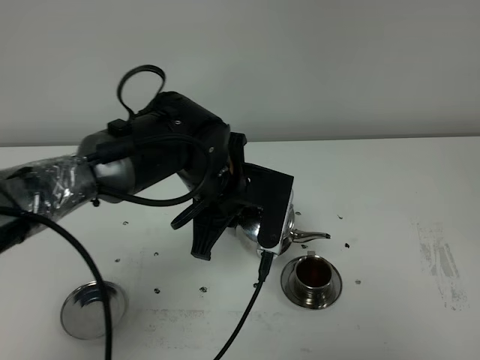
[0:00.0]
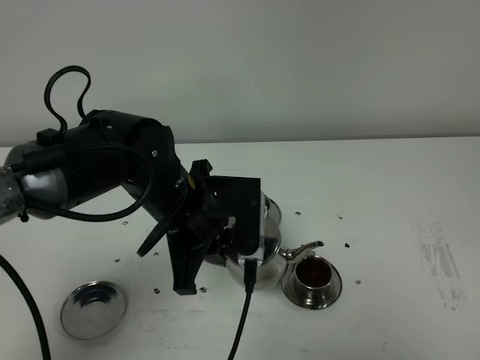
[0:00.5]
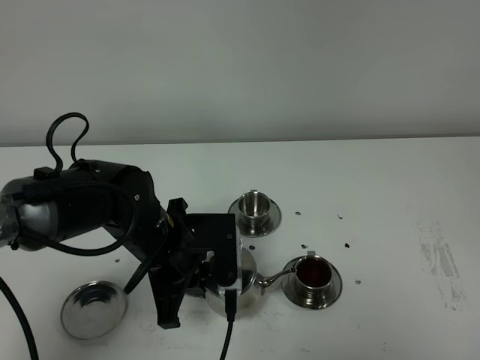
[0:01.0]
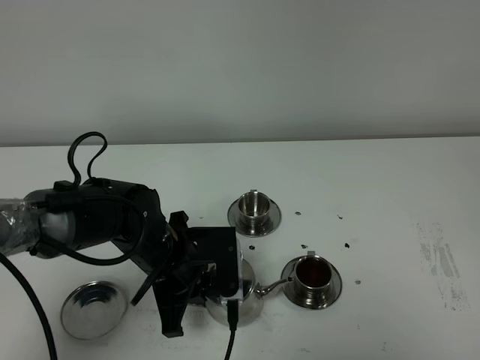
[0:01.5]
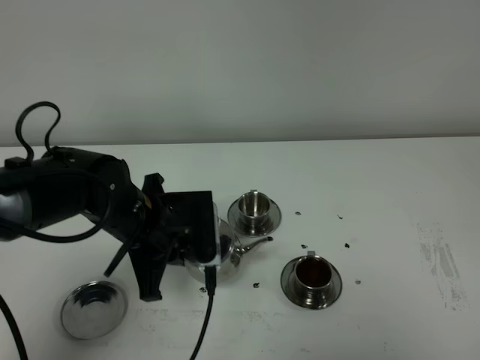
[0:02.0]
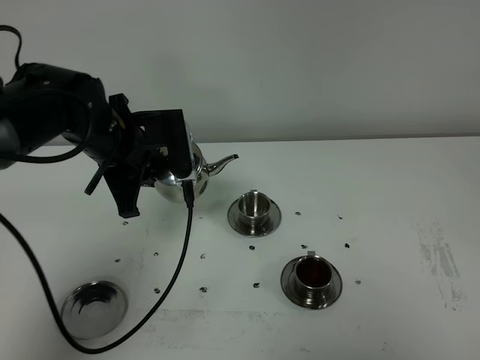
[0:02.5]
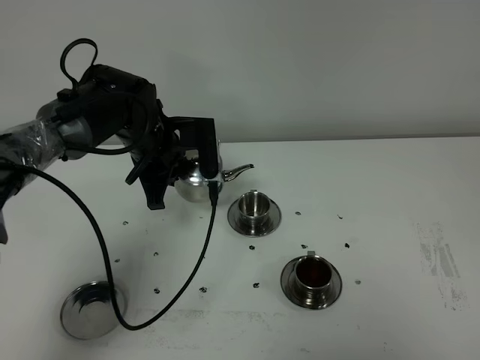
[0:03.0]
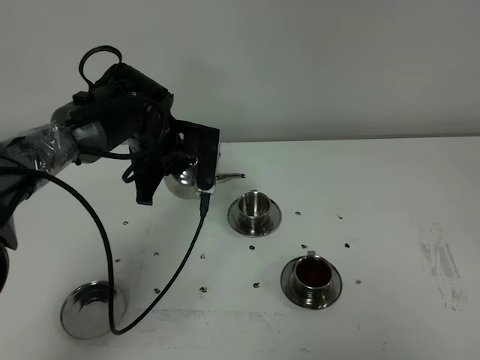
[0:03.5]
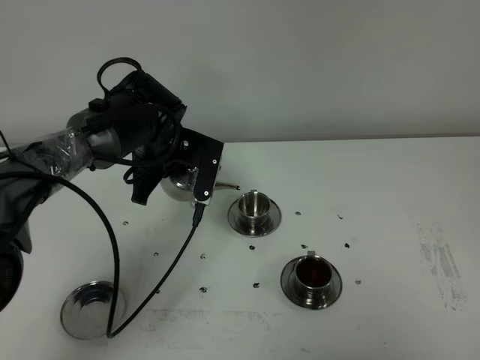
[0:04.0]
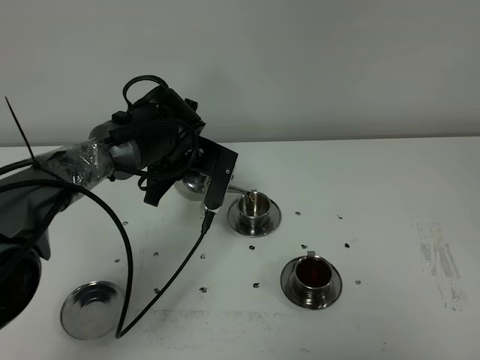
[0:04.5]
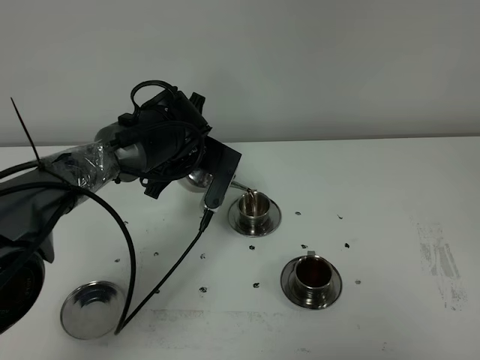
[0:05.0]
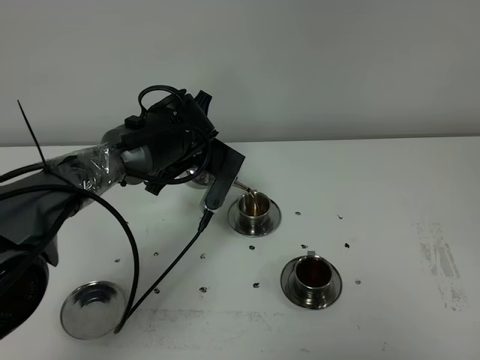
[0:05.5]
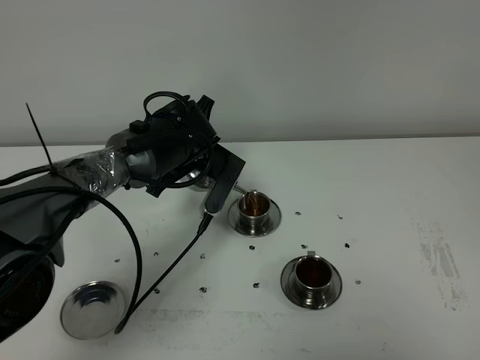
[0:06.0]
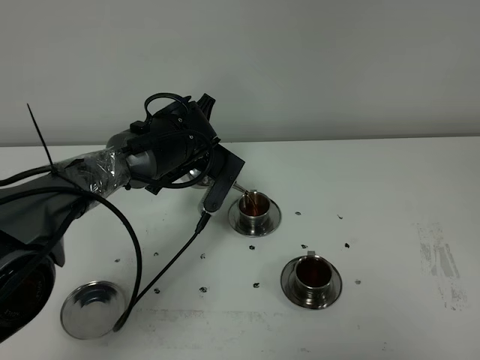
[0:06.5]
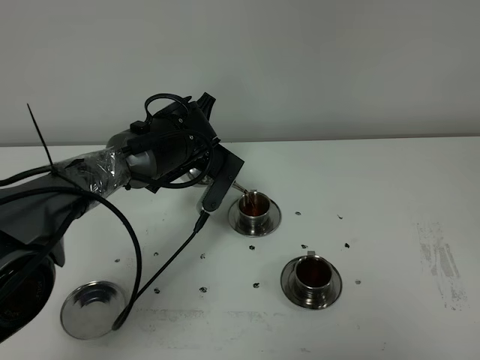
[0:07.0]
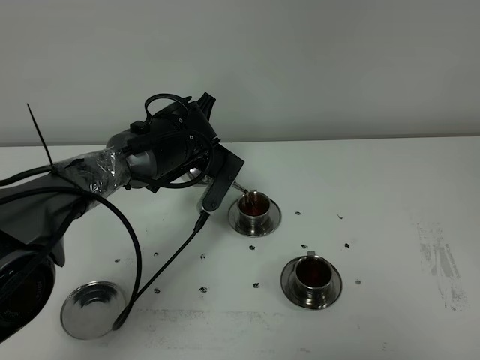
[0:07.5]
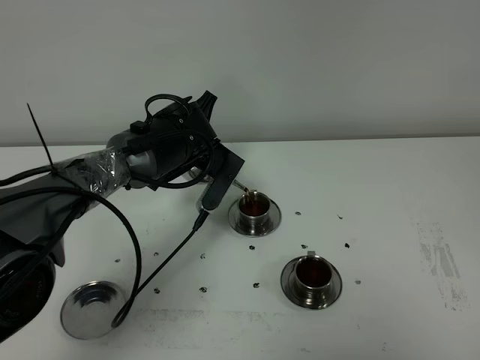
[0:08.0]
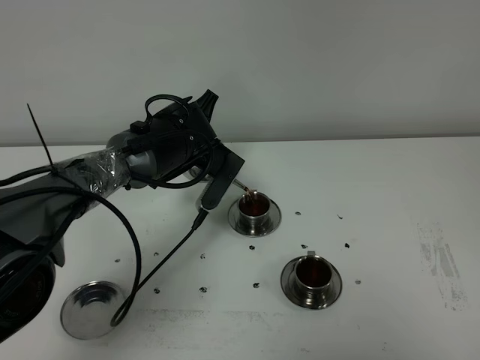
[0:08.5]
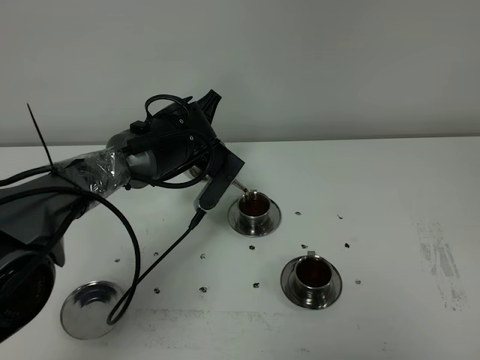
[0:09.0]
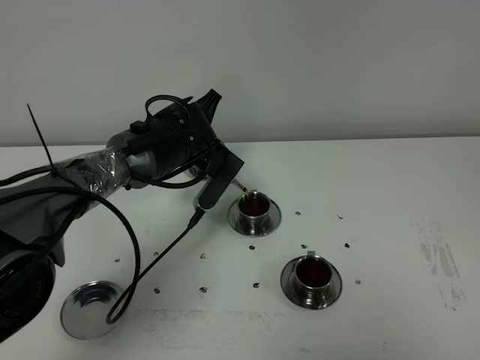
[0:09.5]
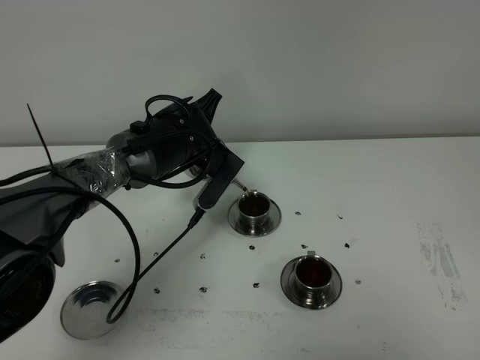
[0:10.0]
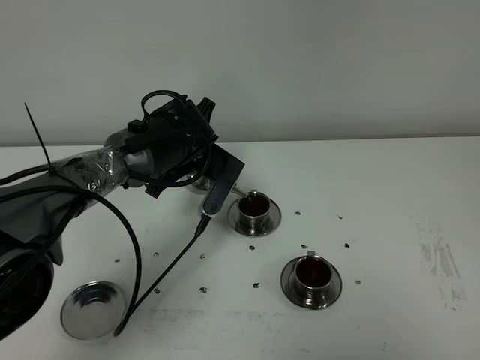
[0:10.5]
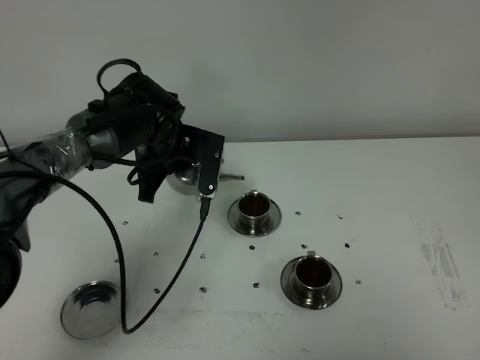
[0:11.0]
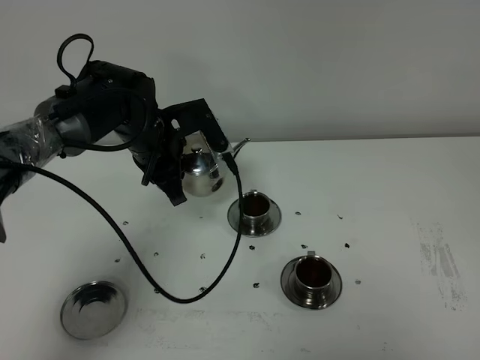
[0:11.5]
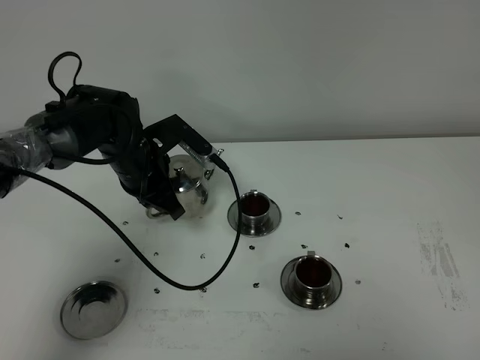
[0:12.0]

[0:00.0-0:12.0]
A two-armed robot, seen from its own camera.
Task of the whole recording: grasp the stainless steel teapot and pour the tea into the two stainless steel teacups one by one, put the stainless steel teapot back in its original place.
Step, 0:00.0 to 0:10.5: Pour tea into the teacup with the left gripper.
0:00.0 to 0:02.0: The left gripper moves to the left, about 10 cm.
0:02.0 to 0:04.0: The left gripper travels forward by about 10 cm.
0:04.0 to 0:06.0: The grippers make only small movements.
0:06.0 to 0:08.0: Both grippers stay about where they are.
0:08.0 to 0:10.0: Both grippers stay put.
0:10.0 to 0:12.0: The left gripper travels to the left by some 10 cm.

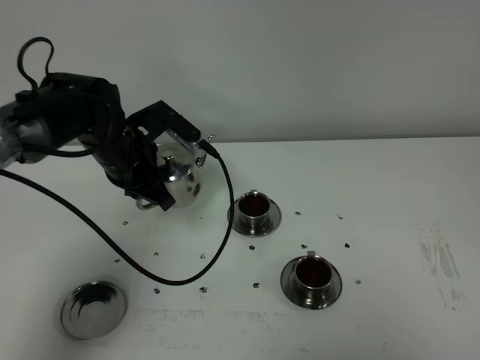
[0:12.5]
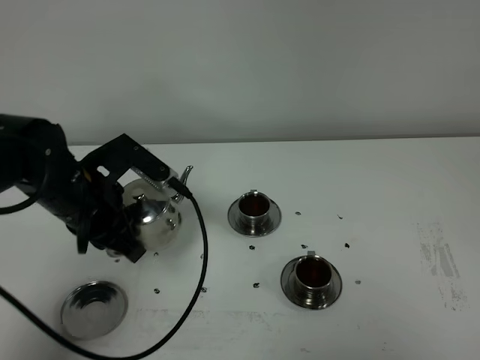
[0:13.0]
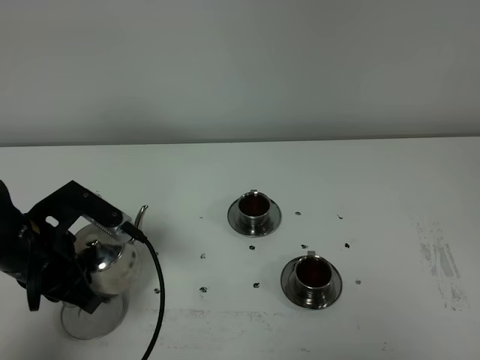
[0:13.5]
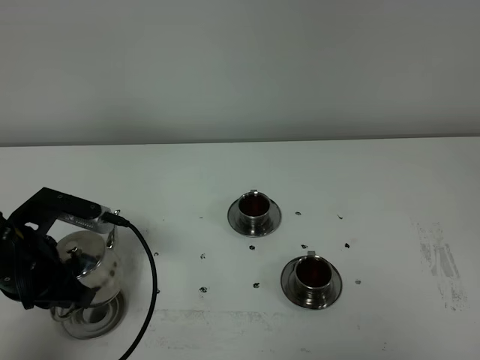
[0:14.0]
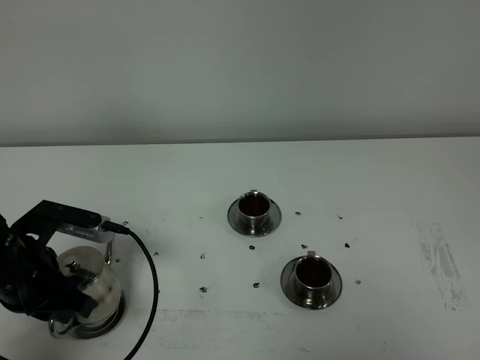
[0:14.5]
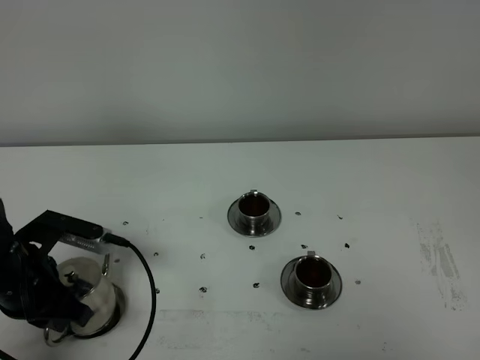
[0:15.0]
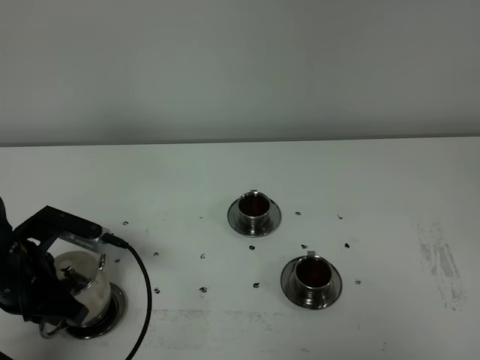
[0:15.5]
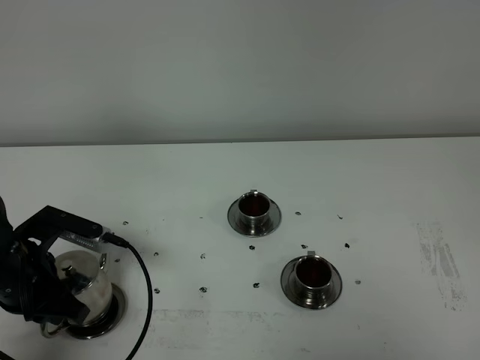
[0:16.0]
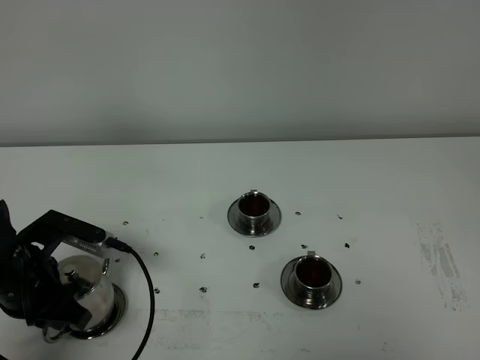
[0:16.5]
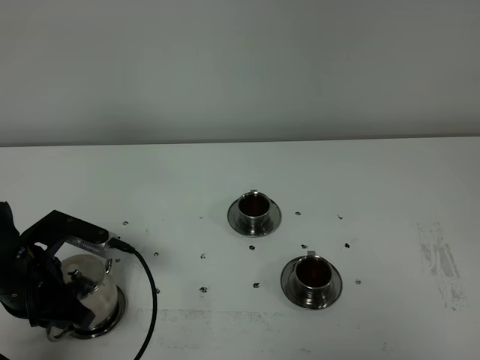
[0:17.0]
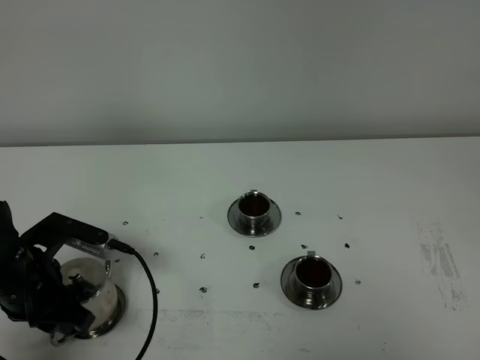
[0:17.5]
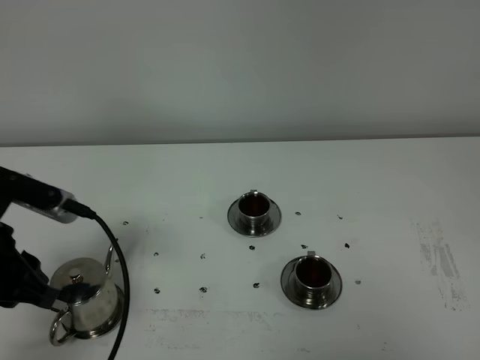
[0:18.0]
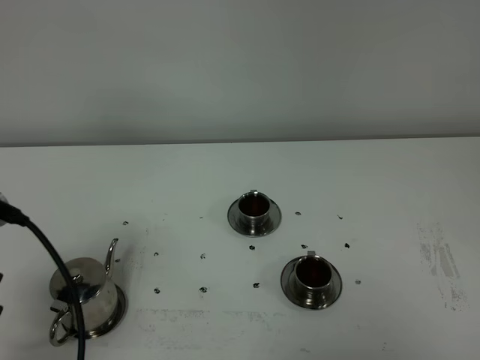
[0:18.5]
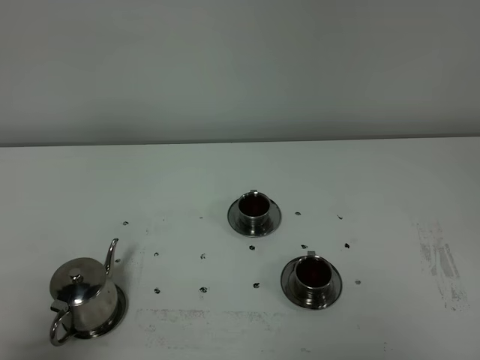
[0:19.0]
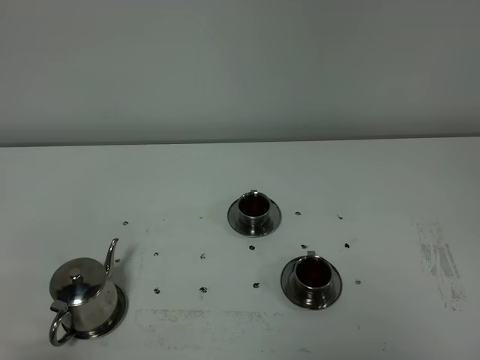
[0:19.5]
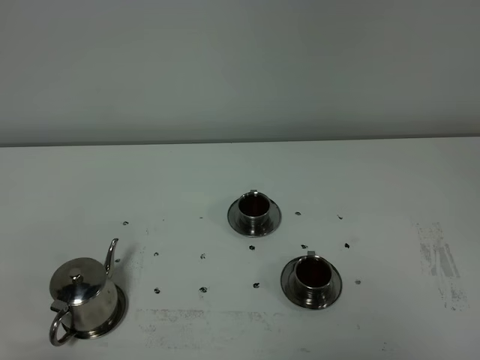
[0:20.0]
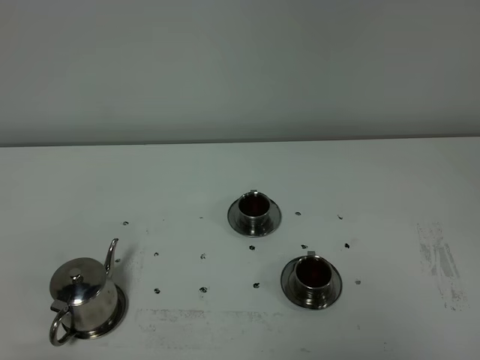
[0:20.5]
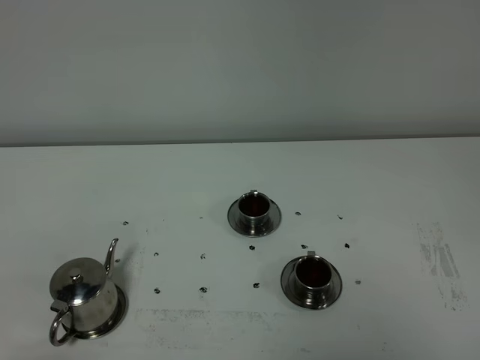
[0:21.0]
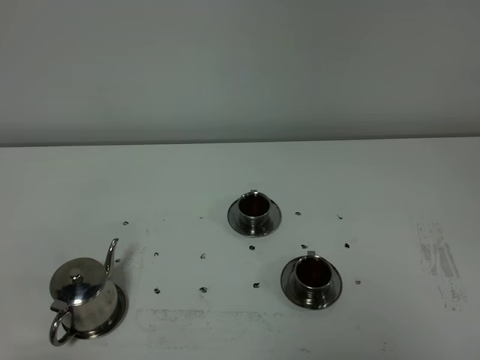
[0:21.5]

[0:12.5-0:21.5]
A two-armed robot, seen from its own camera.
Task of the whole recording: grasp the stainless steel teapot and pour the tea into the two stainless steel teacups one by one, put the stainless steel teapot back in its original place.
0:12.5 to 0:14.5: The left gripper shifts some 20 cm backward and to the left.
0:14.5 to 0:17.0: There are only small adjustments of the grippers.
0:17.0 to 0:19.5: The left gripper travels backward by approximately 25 cm, and opens up.

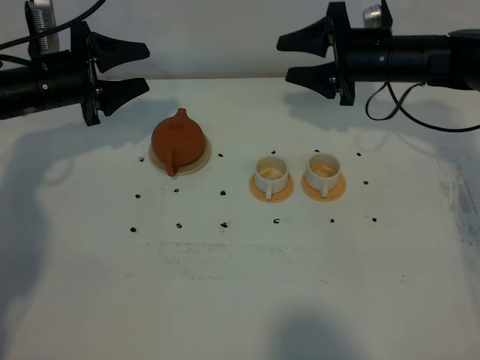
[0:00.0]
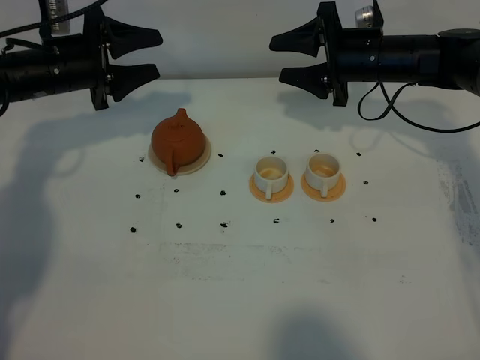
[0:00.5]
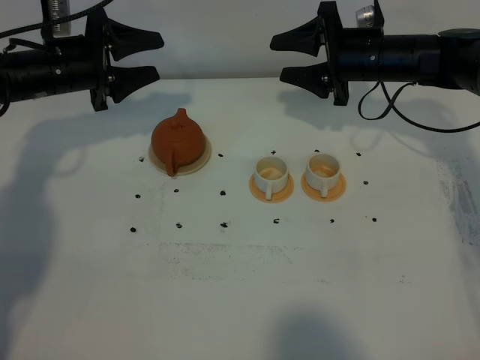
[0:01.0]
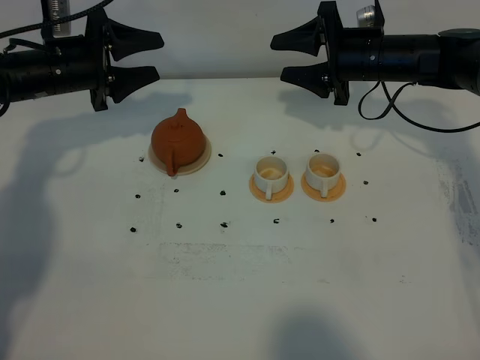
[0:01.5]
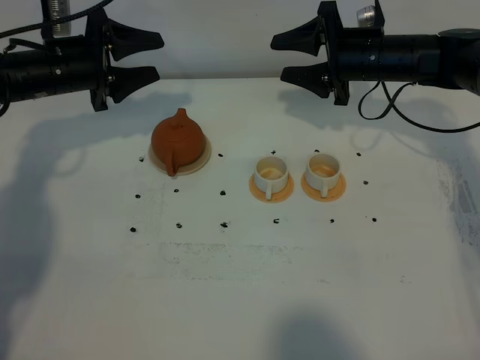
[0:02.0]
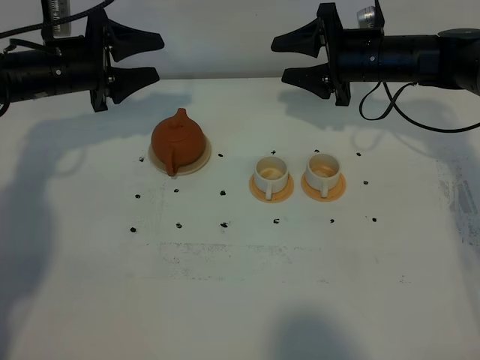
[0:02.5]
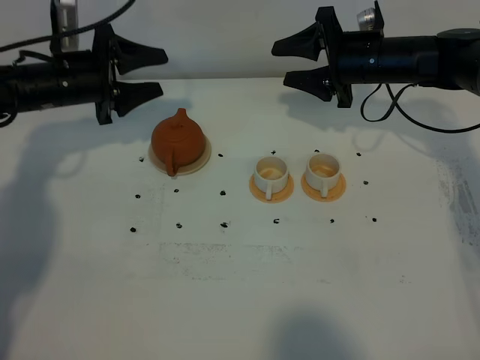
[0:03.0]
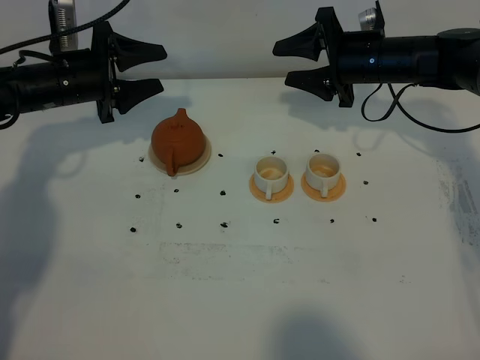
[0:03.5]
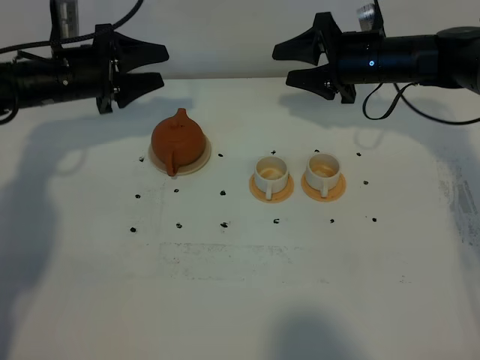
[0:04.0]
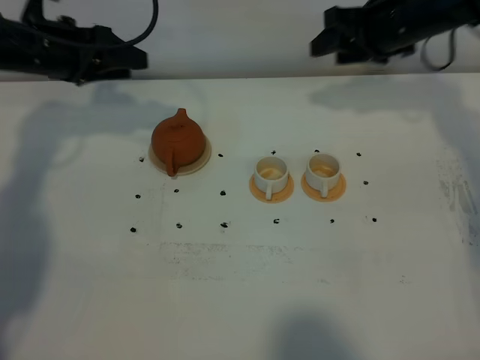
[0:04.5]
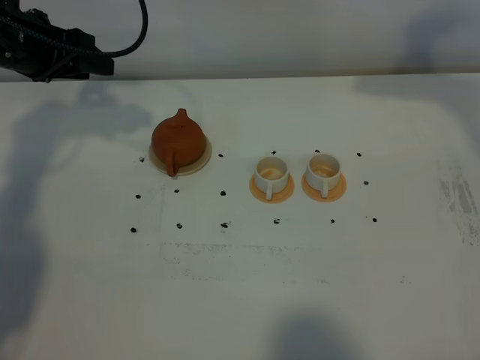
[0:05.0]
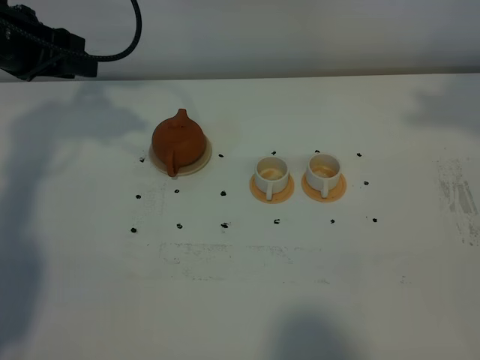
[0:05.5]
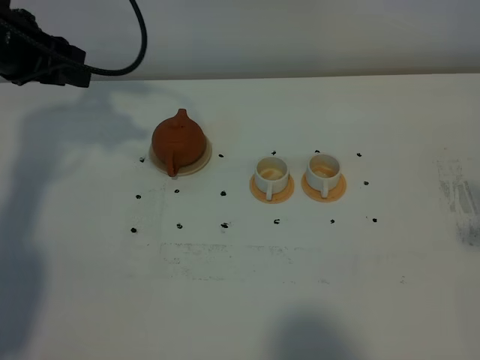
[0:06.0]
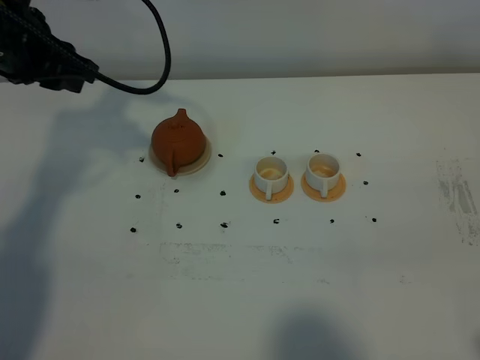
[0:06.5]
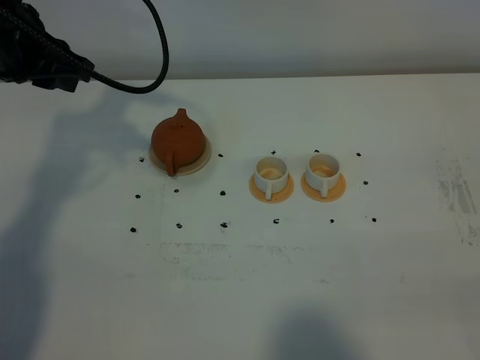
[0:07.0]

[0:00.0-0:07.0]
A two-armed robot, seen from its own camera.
Task of the whole recording: grasp the brown teapot and pour the tea into the two white teacups one by one, put the brown teapot back in its original place.
0:00.0 to 0:03.5: There are only small adjustments of the grippers.
0:03.5 to 0:05.0: The left gripper shifts about 10 cm upward; the right gripper moves upward, about 20 cm, and closes.
0:05.0 to 0:07.0: The left gripper goes approximately 10 cm upward and backward.
